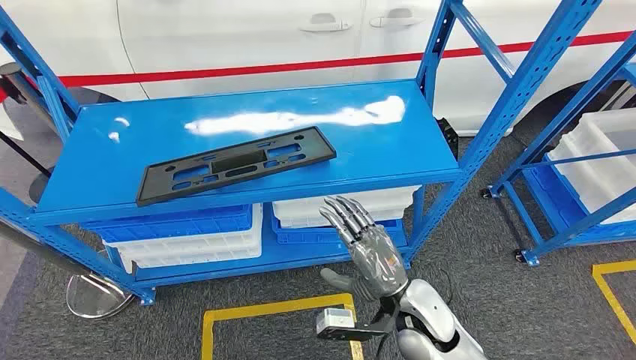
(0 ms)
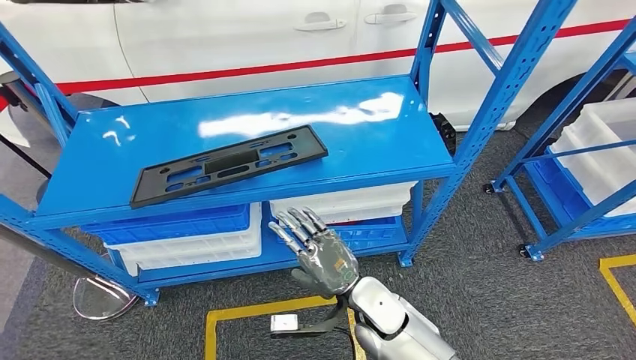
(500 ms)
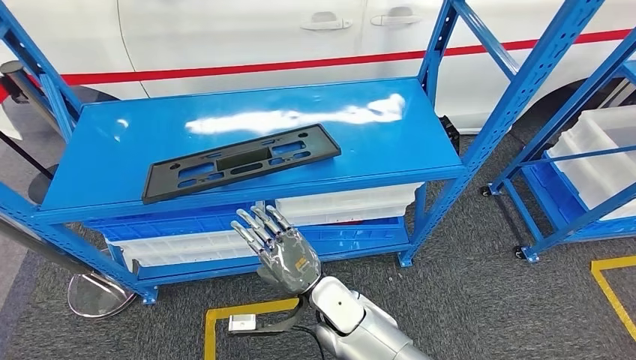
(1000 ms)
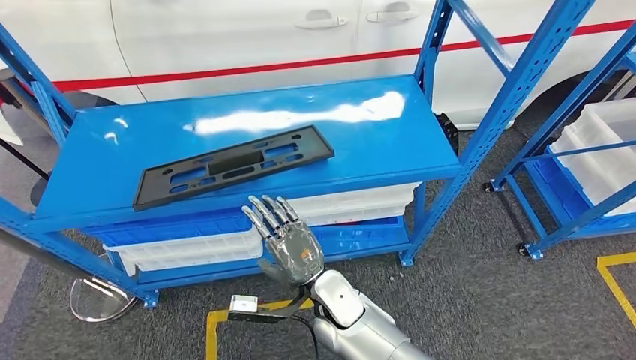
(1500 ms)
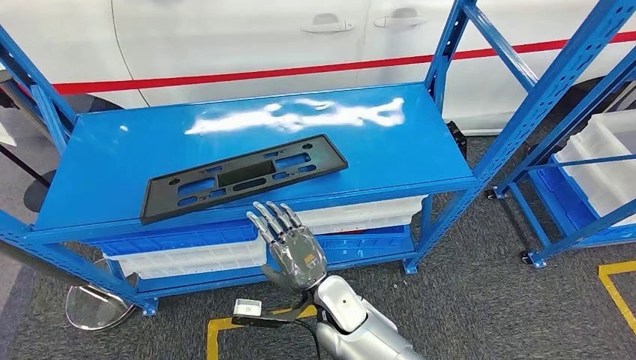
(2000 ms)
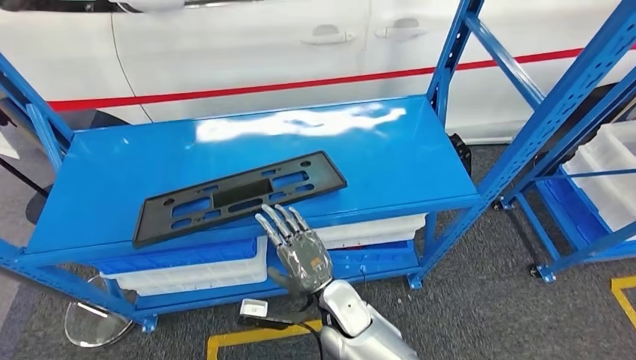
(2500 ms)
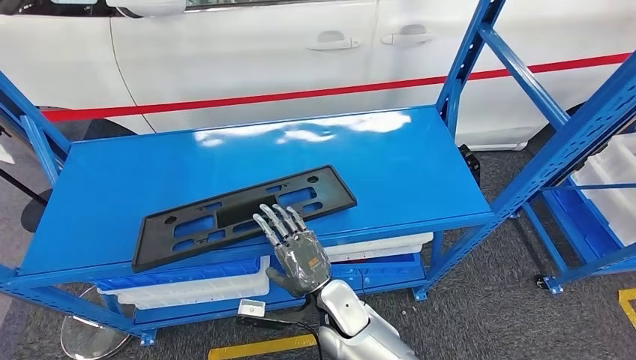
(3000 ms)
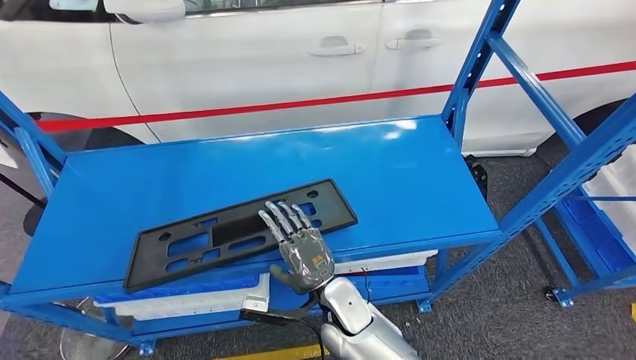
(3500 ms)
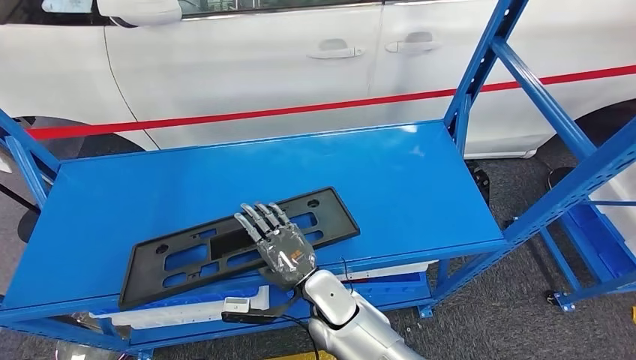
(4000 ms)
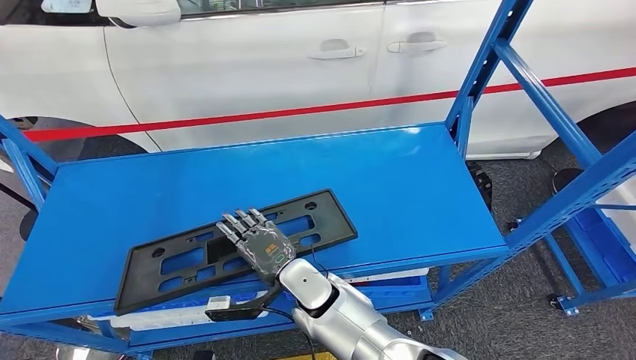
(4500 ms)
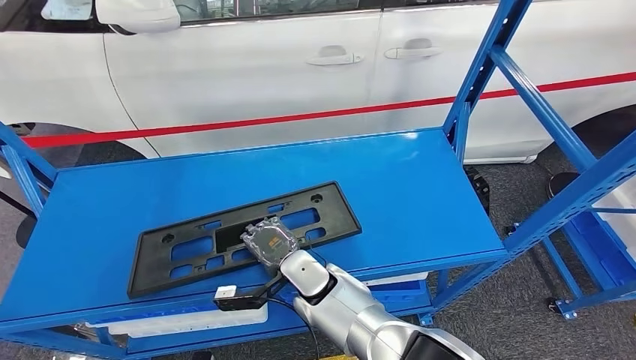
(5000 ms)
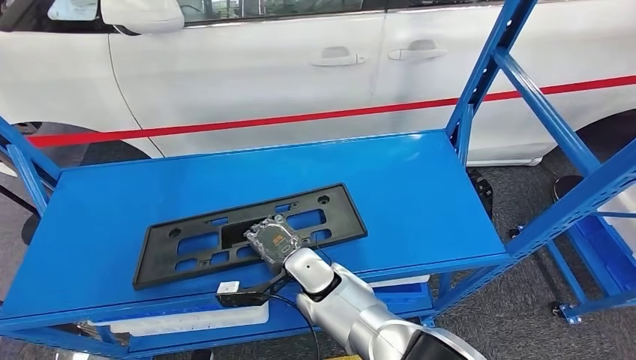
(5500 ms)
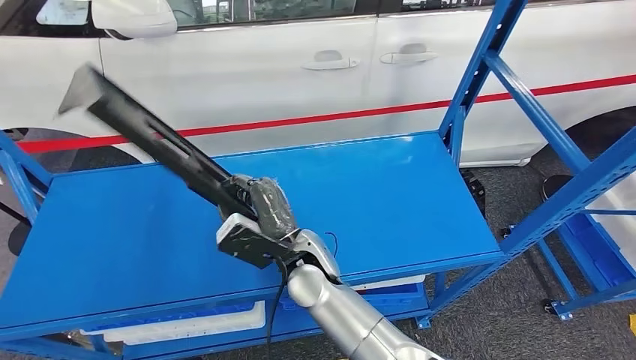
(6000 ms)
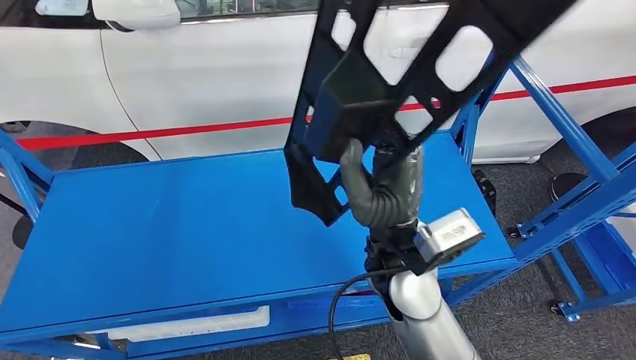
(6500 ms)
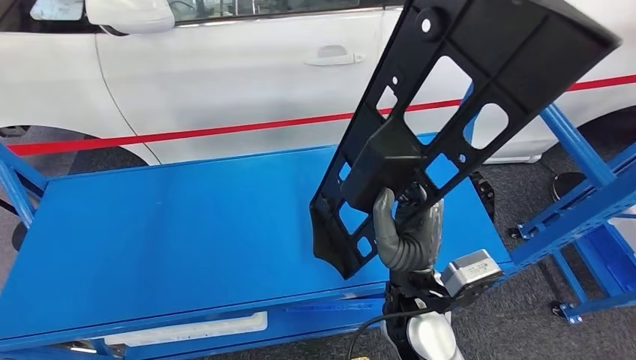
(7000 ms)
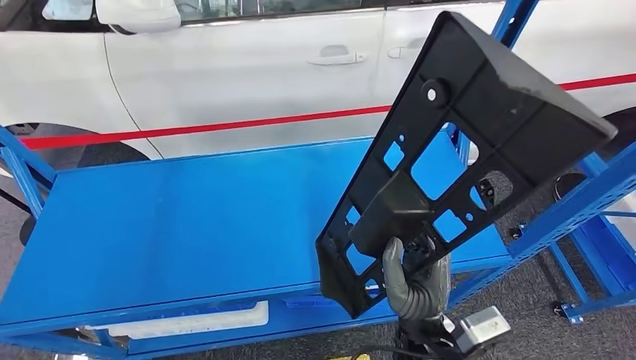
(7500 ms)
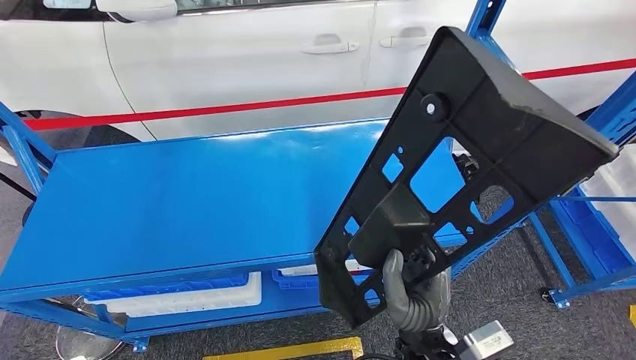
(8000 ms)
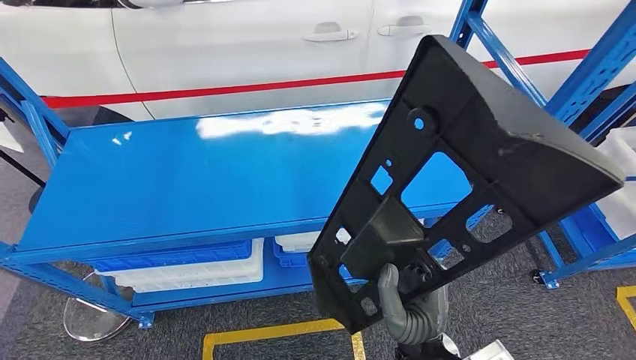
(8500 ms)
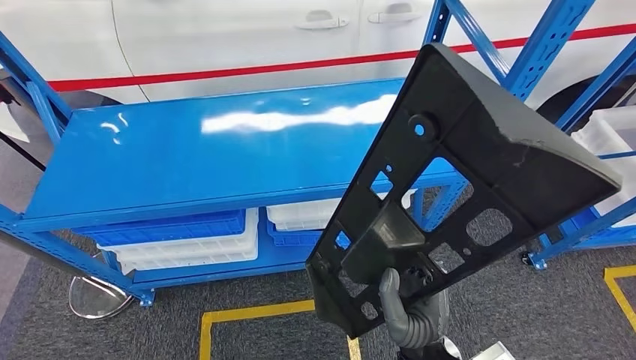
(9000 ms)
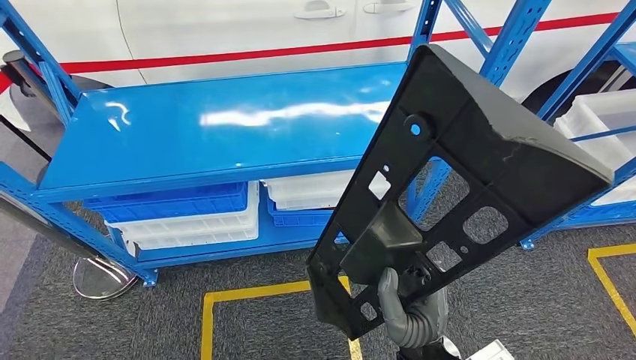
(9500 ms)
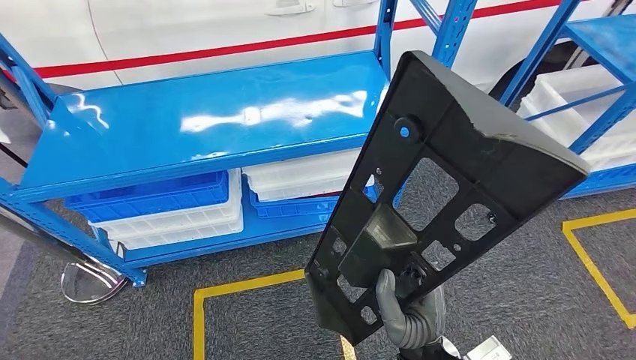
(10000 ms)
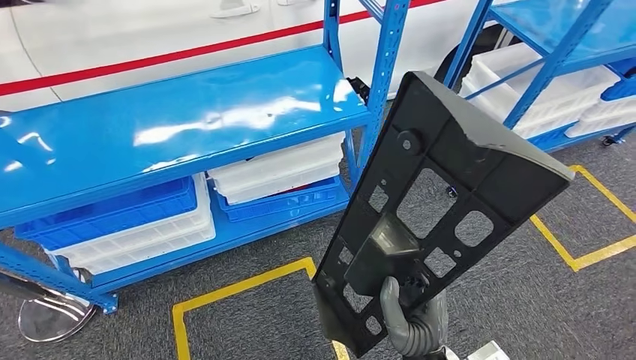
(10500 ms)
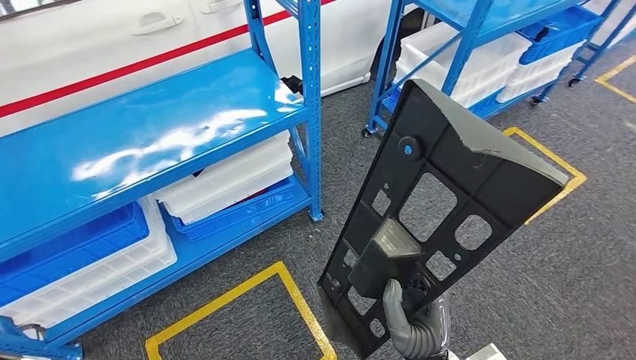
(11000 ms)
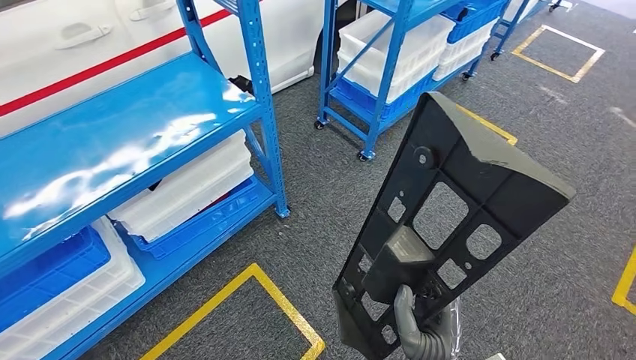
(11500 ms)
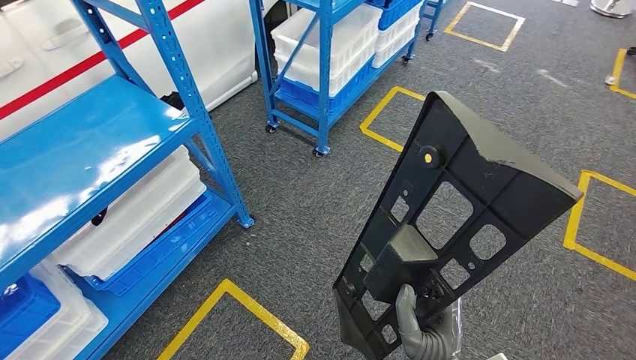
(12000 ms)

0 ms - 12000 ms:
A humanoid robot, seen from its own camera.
Step, 0 ms - 9000 ms: Pick up the large material from the shelf.

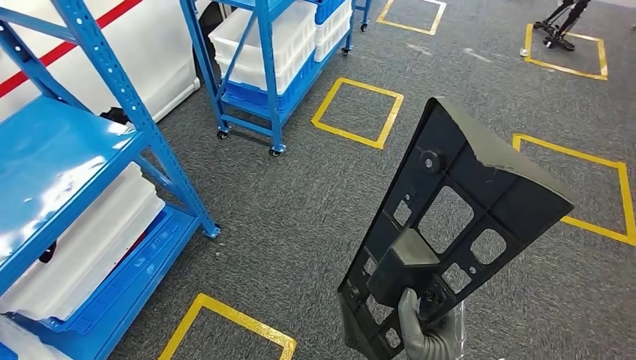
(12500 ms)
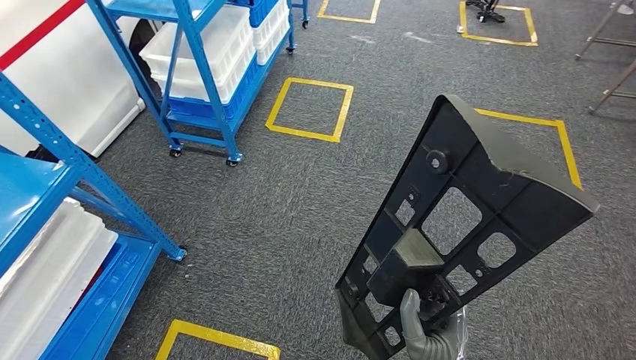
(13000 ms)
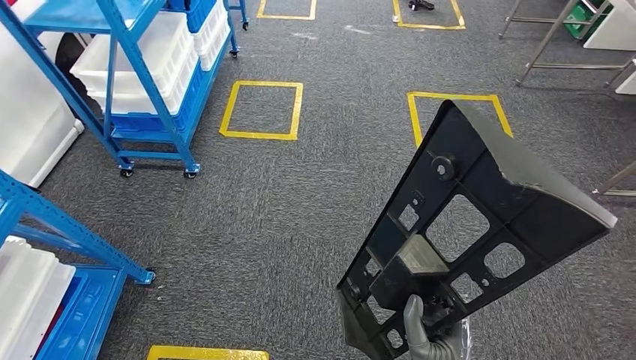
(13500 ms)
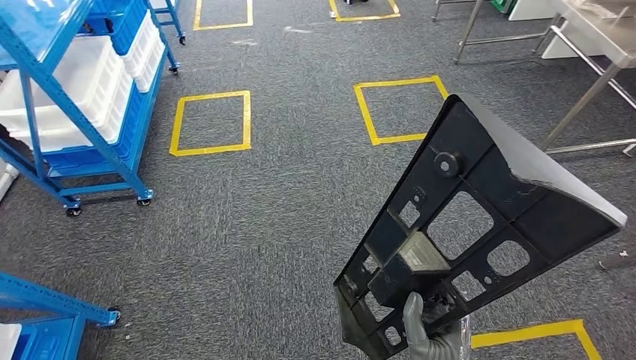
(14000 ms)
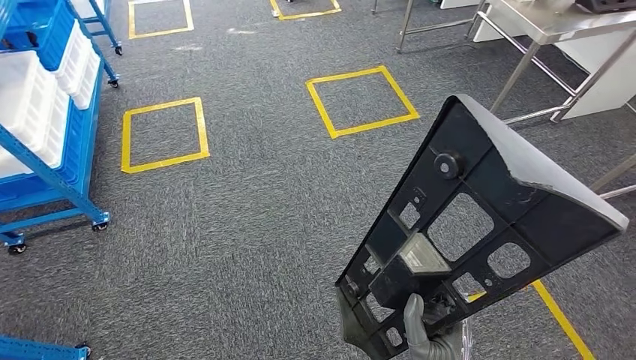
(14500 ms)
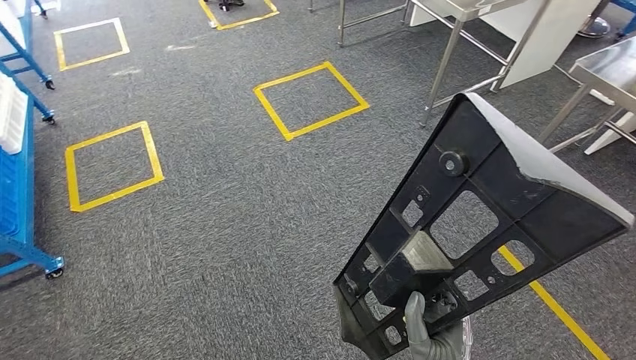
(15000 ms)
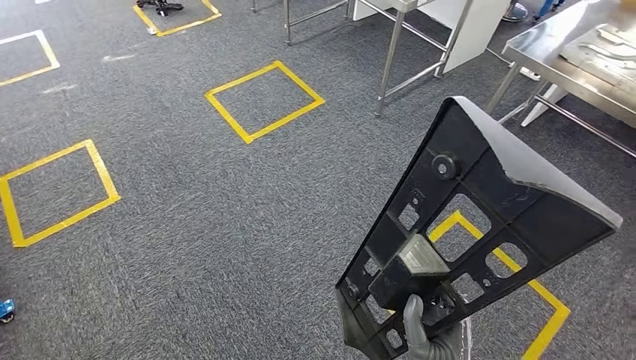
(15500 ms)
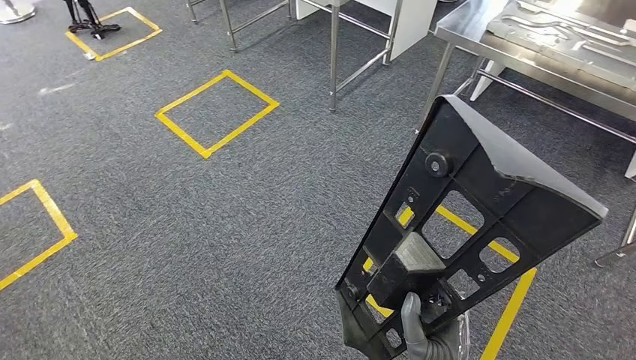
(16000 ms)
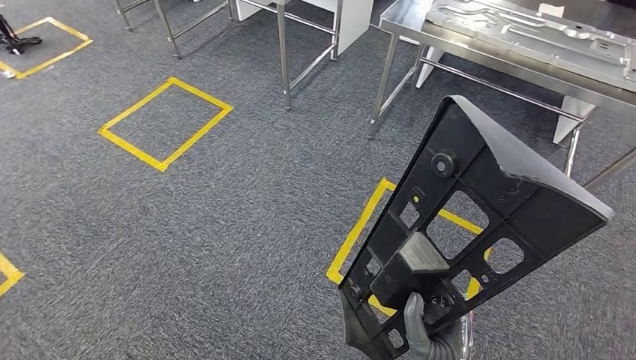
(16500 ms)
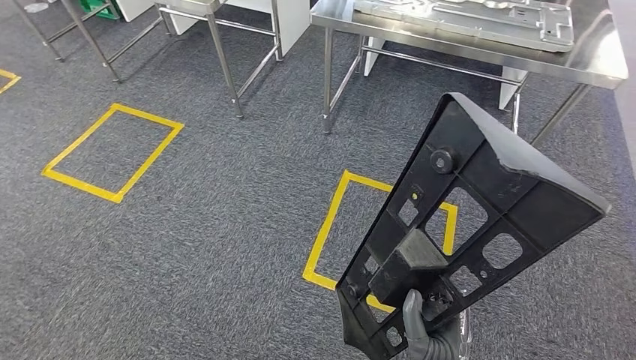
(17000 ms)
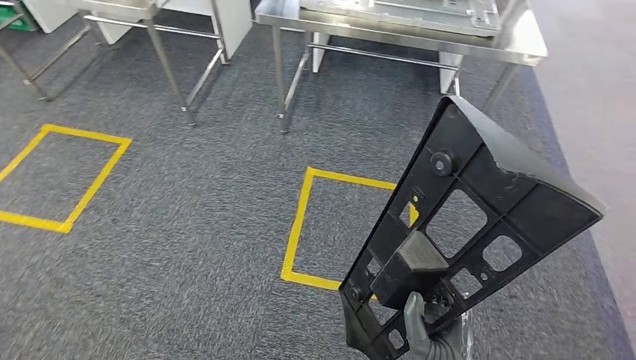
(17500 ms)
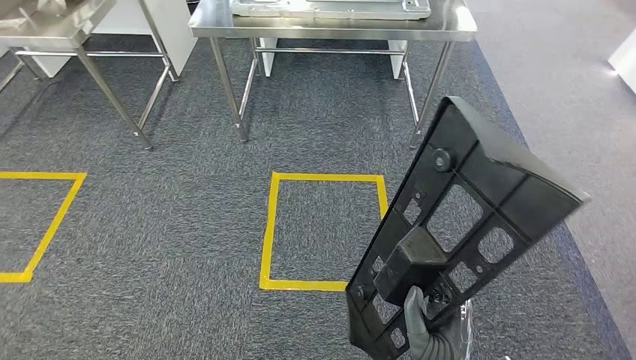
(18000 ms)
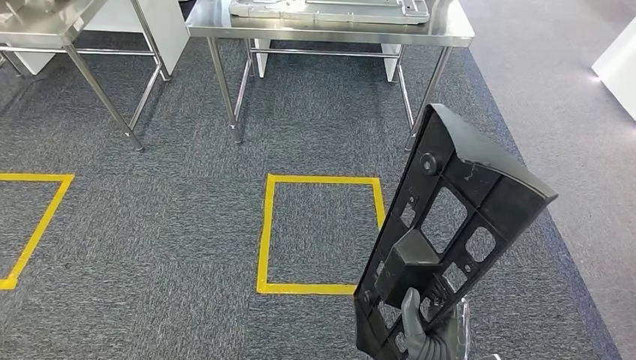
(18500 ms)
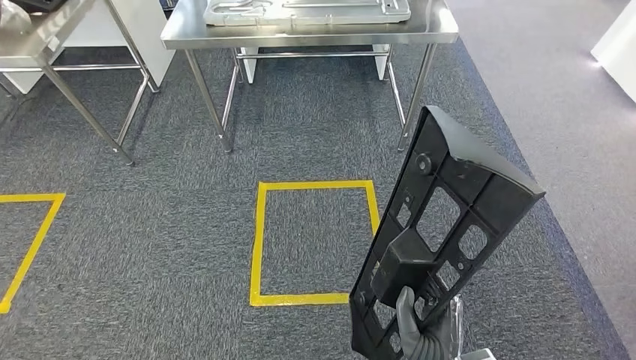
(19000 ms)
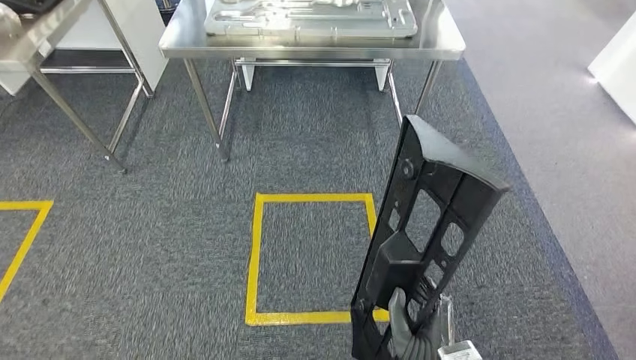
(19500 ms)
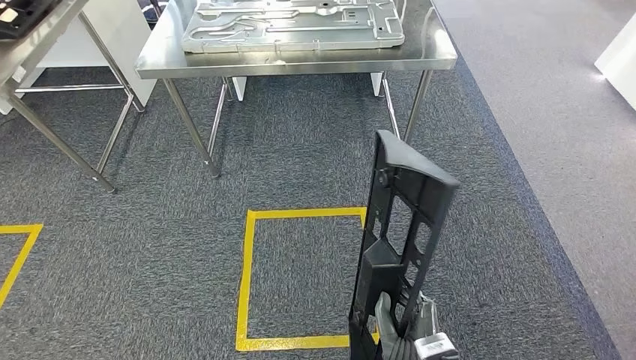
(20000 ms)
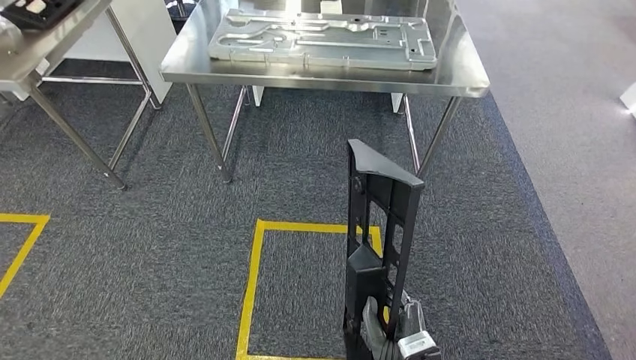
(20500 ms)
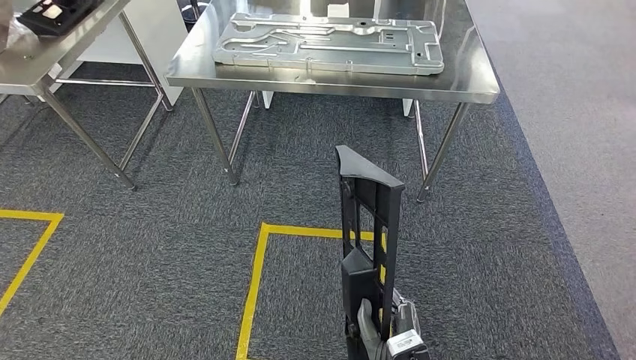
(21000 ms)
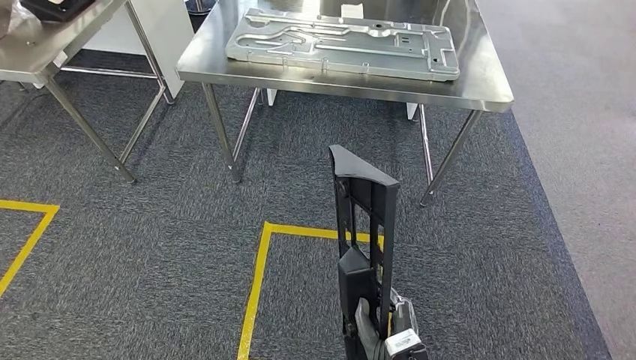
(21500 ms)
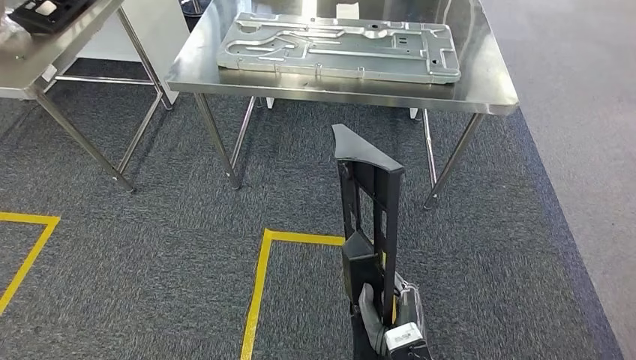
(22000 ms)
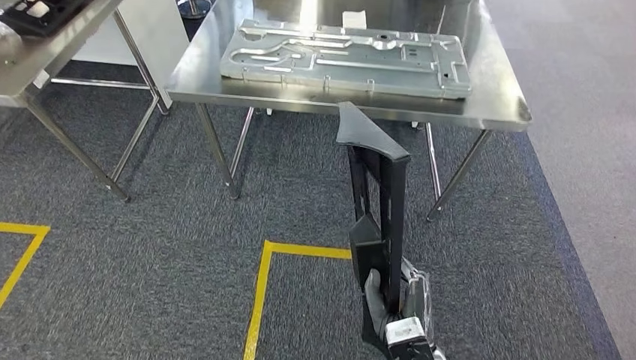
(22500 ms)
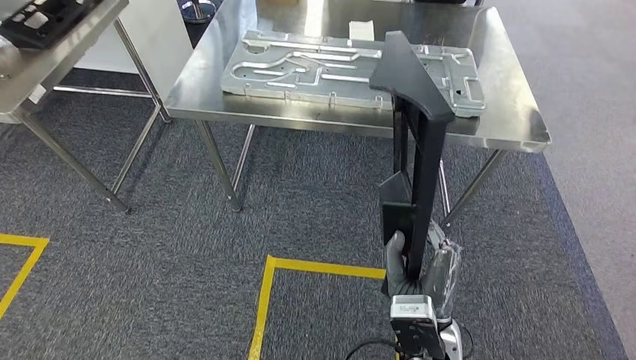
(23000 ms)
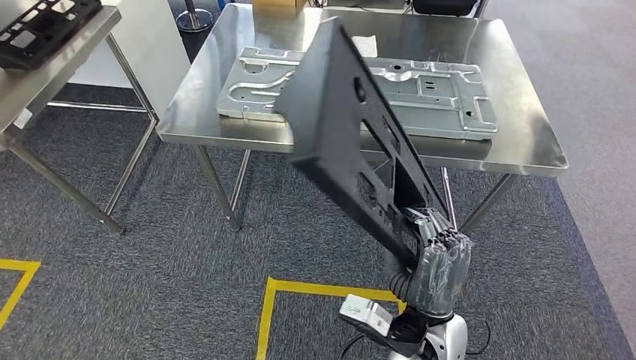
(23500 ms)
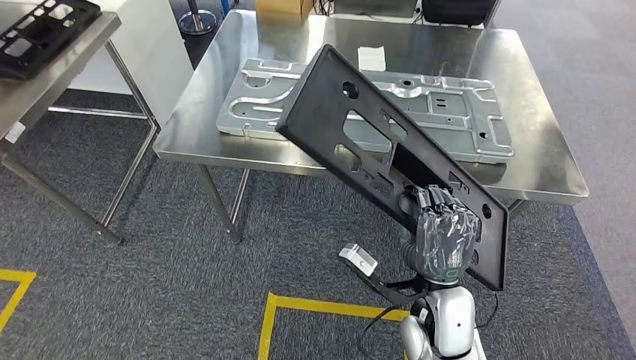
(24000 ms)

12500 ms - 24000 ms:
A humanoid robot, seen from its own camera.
Step, 12500 ms - 24000 ms: Move the large material to the workbench.
